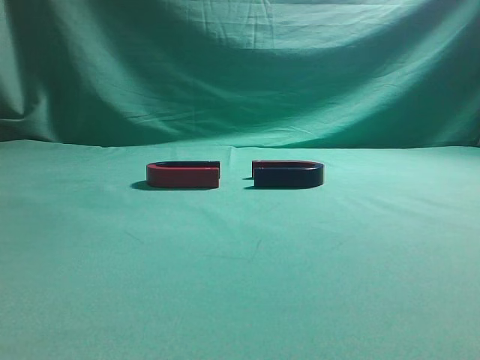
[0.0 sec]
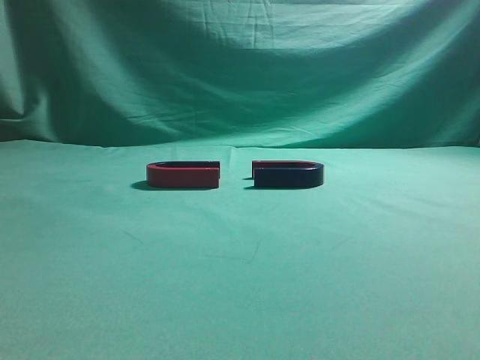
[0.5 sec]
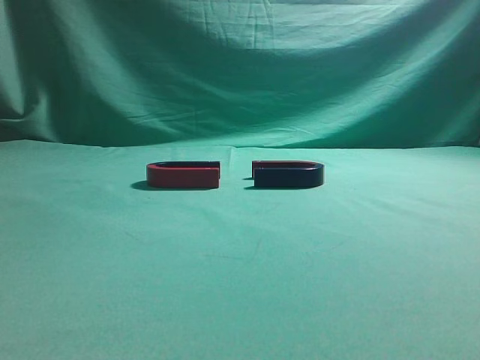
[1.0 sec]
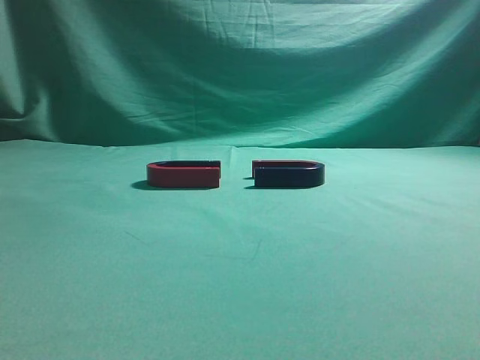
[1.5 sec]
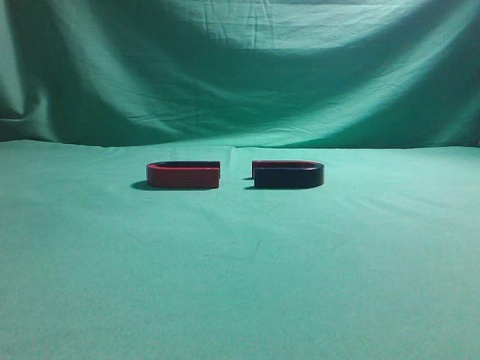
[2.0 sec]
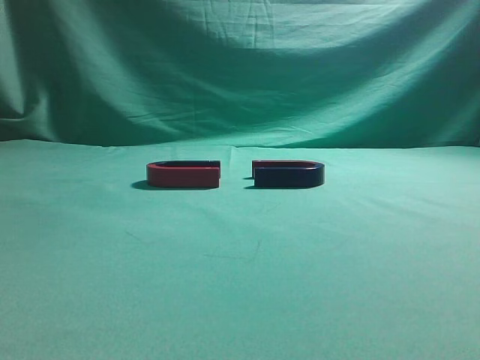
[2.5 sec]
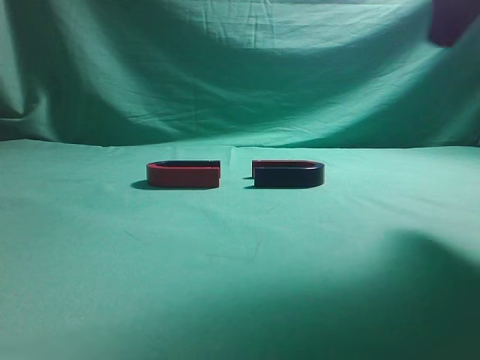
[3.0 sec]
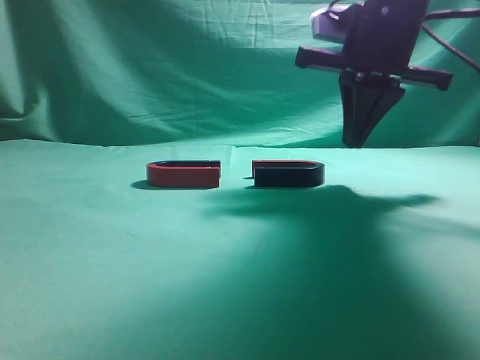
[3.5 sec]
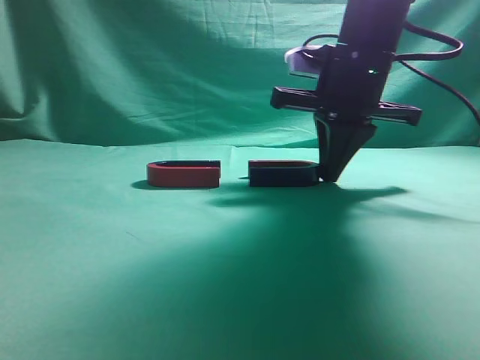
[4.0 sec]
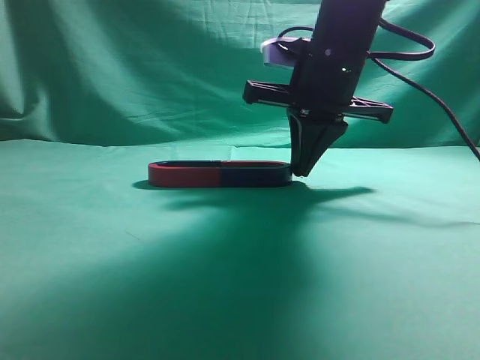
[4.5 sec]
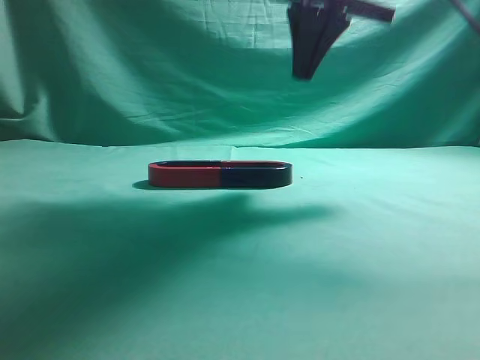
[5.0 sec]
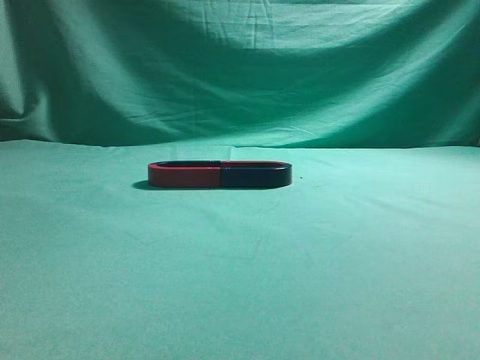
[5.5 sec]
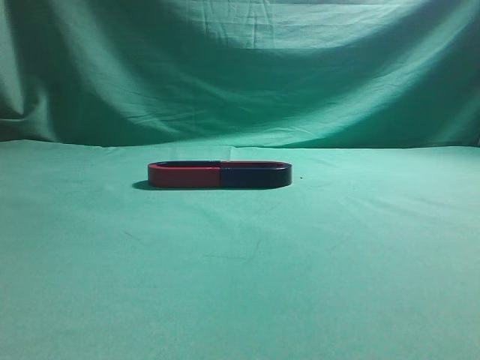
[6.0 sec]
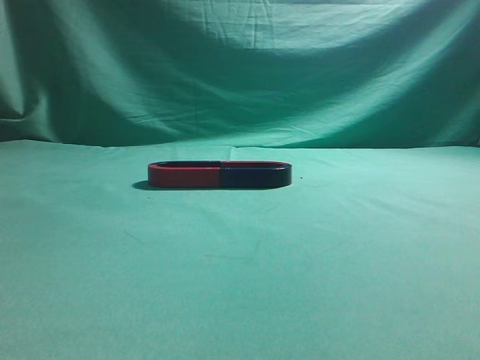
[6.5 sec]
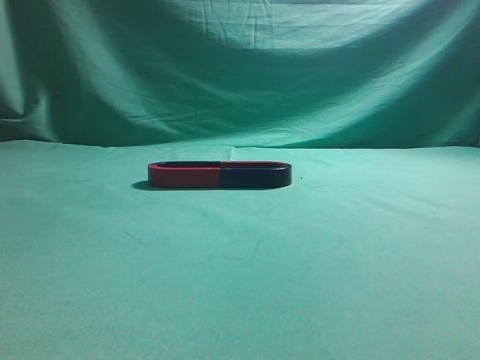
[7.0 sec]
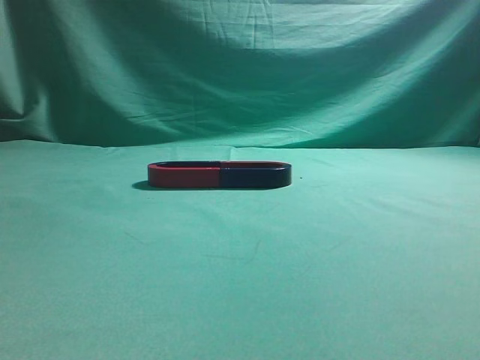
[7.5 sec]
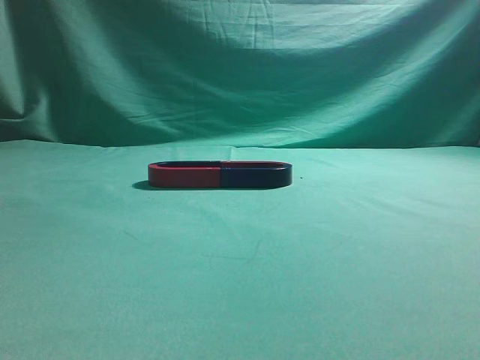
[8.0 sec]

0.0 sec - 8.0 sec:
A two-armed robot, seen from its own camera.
Task of the whole recording: push the magnet on the table from its original position to another position.
Step, 0.0 sec - 4.5 sec: Push the magnet on the right to connect the magnet on the left.
2.0 sec - 4.0 sec: The right gripper is displaced forward and to the left by some 35 cm.
4.0 sec - 6.0 sec: The right gripper is displaced upward, backward and to the right by approximately 35 cm.
